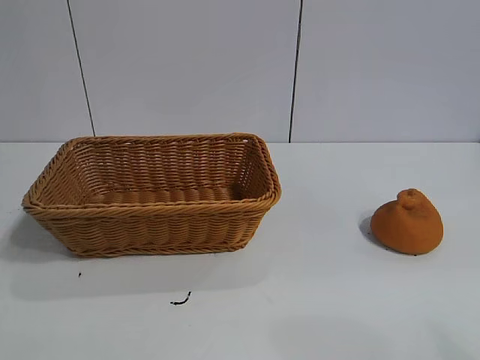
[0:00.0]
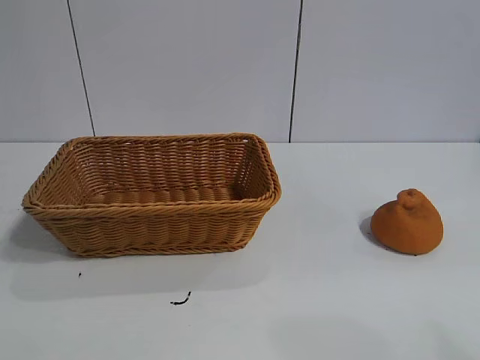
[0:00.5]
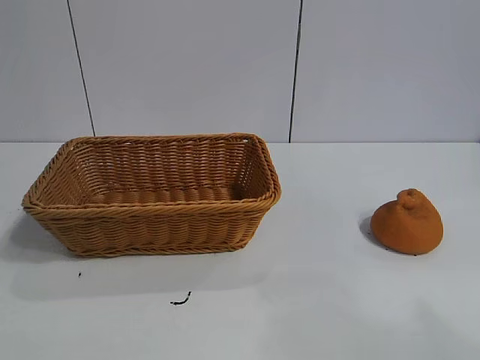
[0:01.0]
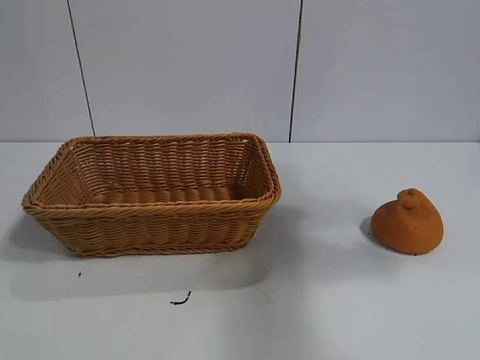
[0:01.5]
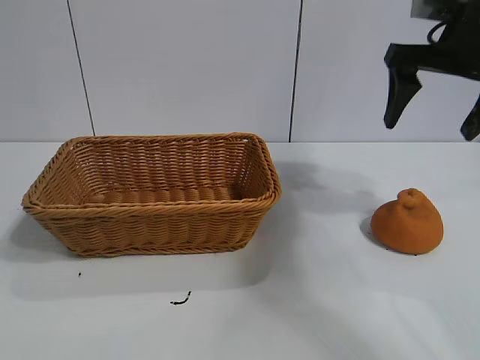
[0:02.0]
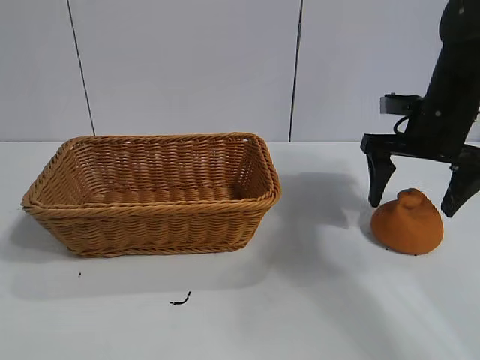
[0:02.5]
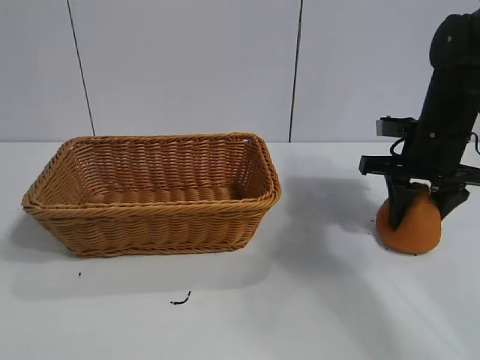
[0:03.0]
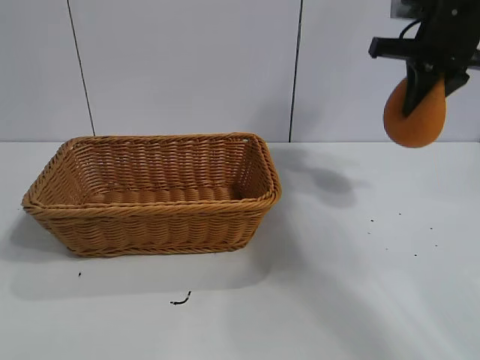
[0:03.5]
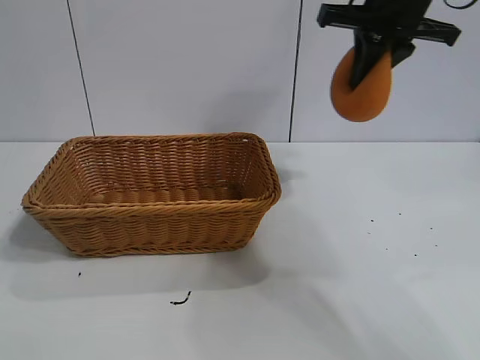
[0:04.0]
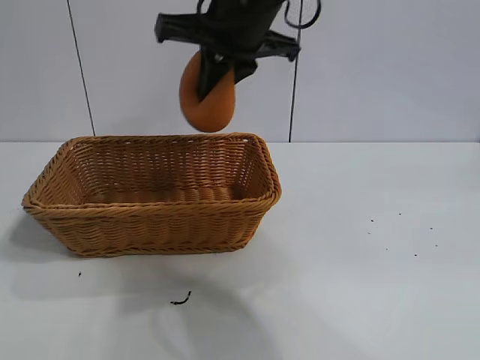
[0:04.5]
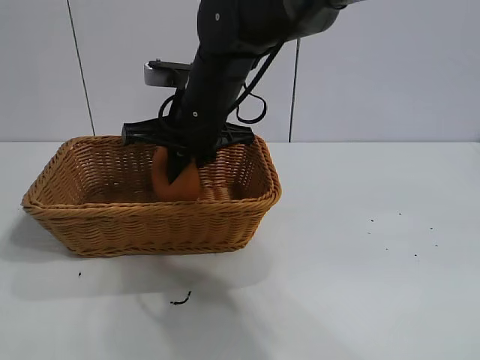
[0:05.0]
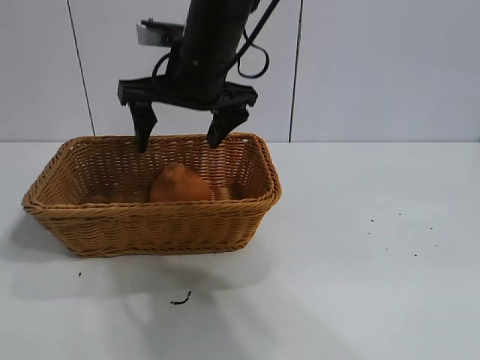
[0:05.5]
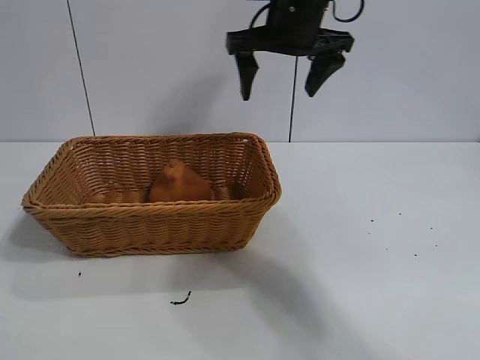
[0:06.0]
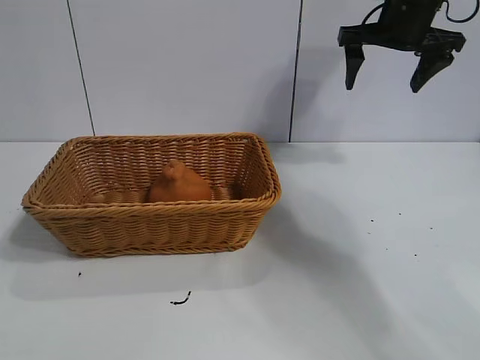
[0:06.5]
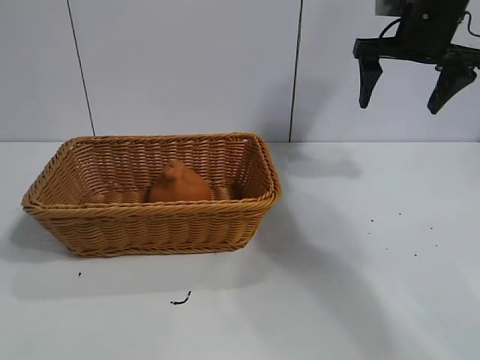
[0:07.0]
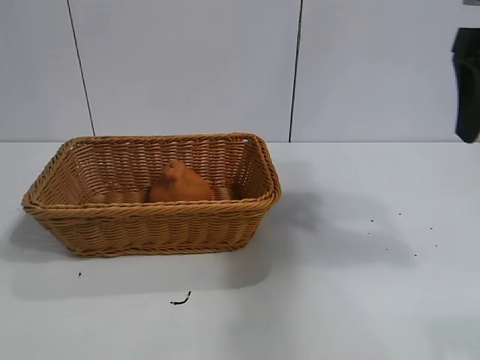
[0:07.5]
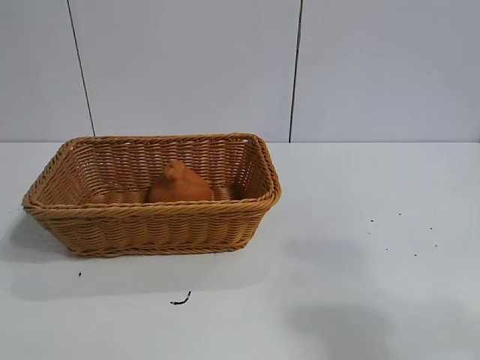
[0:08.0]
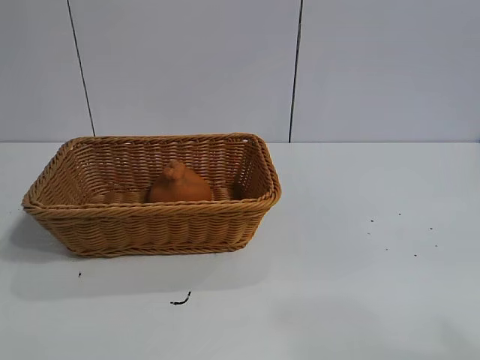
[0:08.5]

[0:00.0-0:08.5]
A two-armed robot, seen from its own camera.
Task of the whole recording: pick up the orange and put it into the basket.
Step, 0:01.0 to 0:03.0: Grasp the orange with right gripper.
Step, 0:03.5 to 0:05.5: Place the orange in the basket with right gripper.

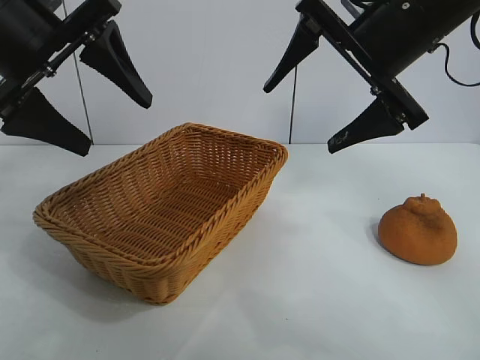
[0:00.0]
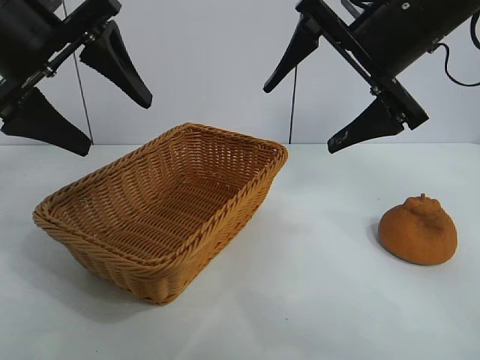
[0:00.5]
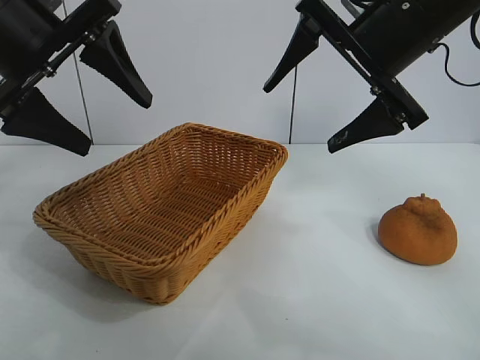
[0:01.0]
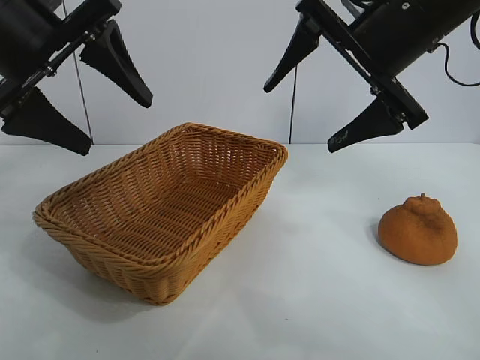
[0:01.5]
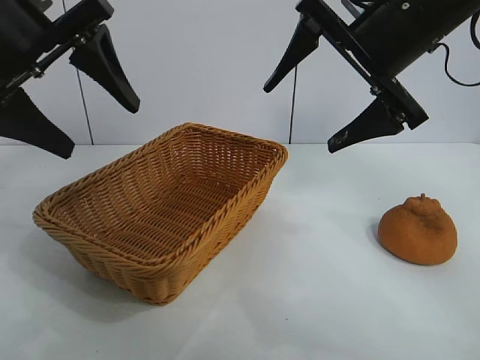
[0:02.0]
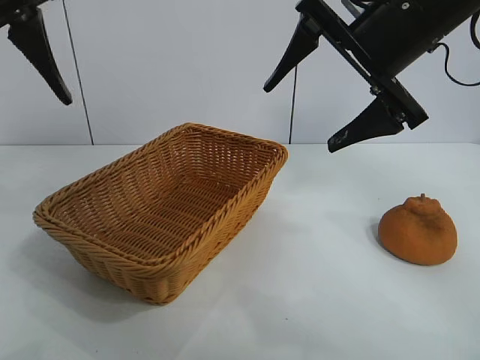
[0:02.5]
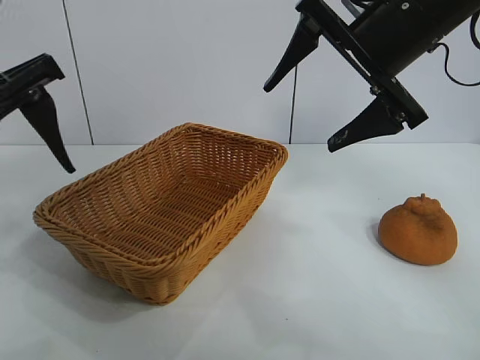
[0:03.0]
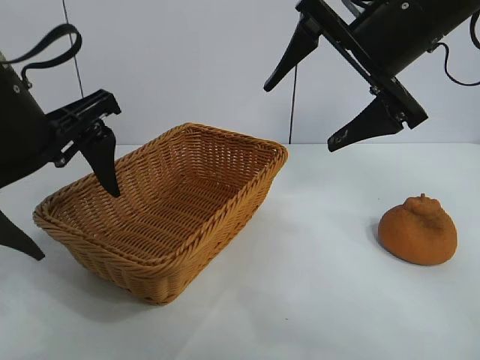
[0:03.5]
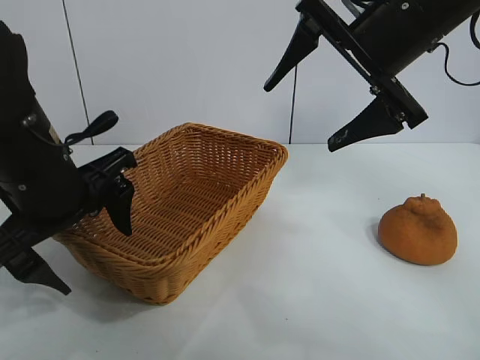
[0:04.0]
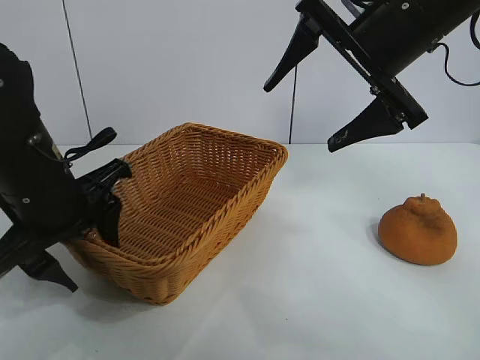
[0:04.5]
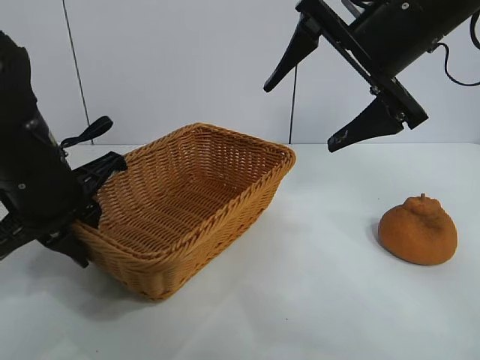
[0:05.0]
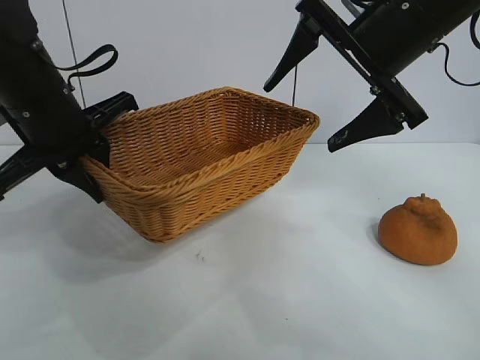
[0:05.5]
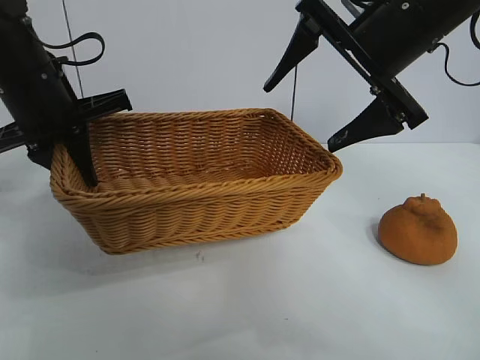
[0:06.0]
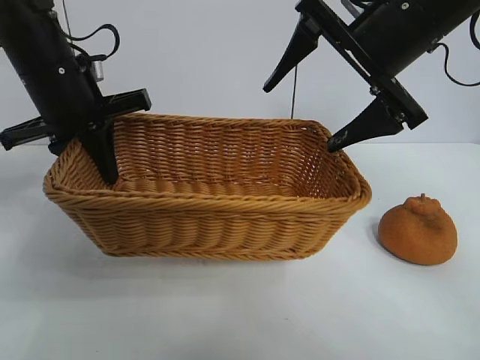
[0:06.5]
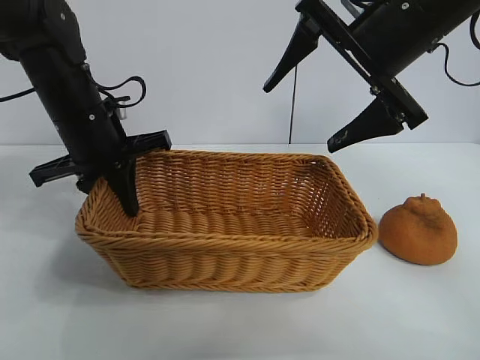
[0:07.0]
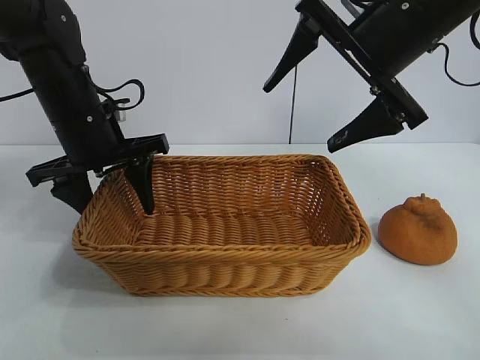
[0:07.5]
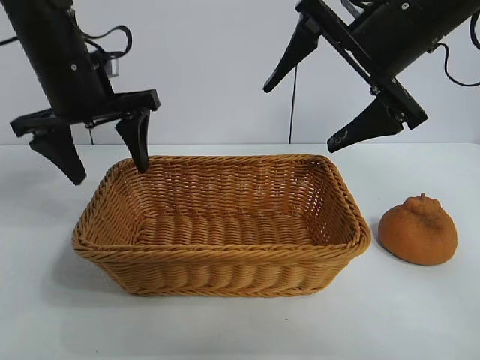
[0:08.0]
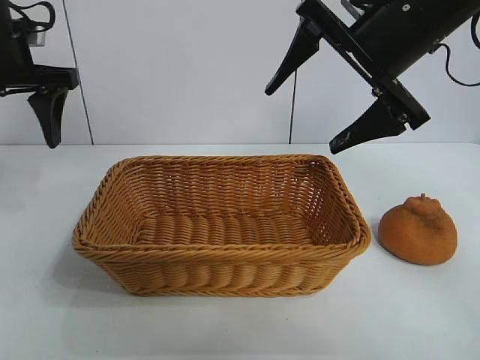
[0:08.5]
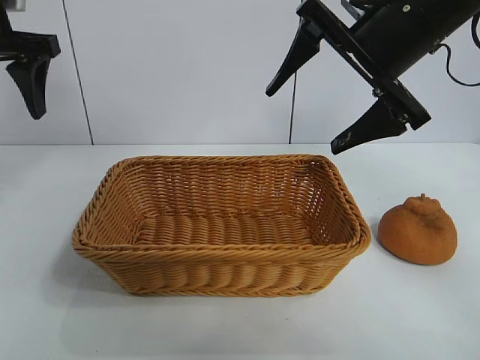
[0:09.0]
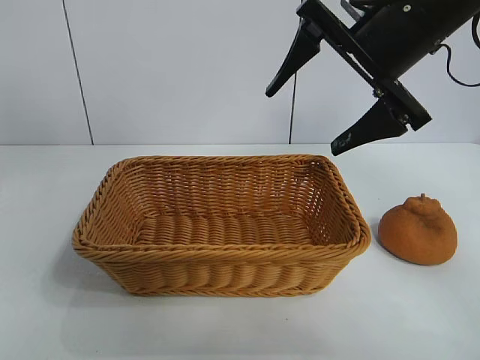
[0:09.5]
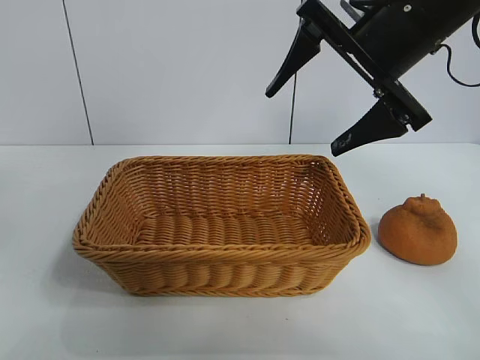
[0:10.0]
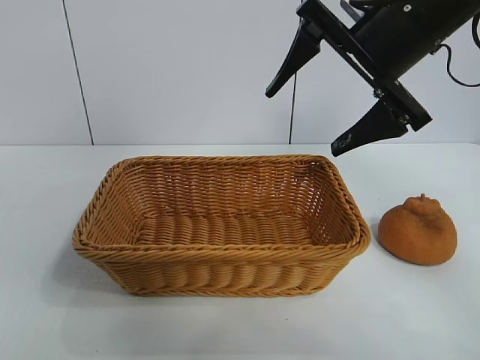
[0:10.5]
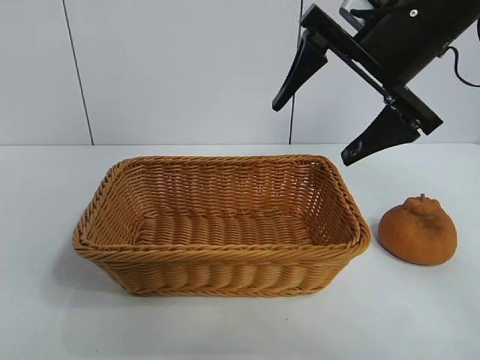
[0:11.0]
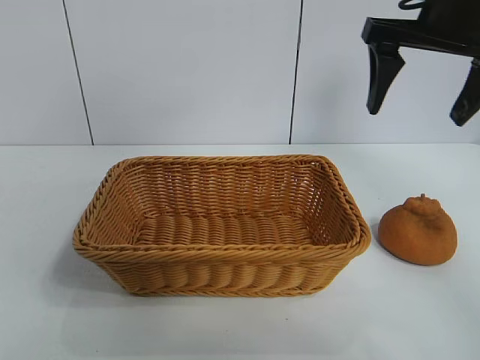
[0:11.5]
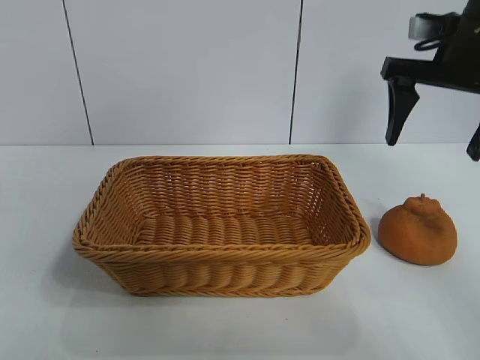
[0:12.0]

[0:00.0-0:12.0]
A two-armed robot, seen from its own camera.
Task of the whole recording: pick up the orange and put it into the basket.
Step, 0:02.0 to 0:04.5: Grasp the basket with left gripper.
Step, 0:05.0 to 0:07.5: Place the basket in the center of view with left gripper.

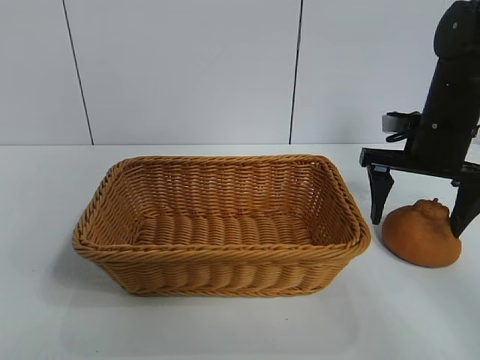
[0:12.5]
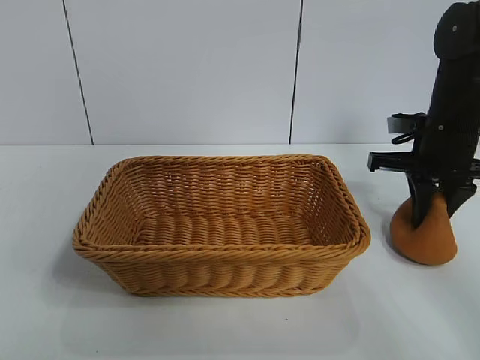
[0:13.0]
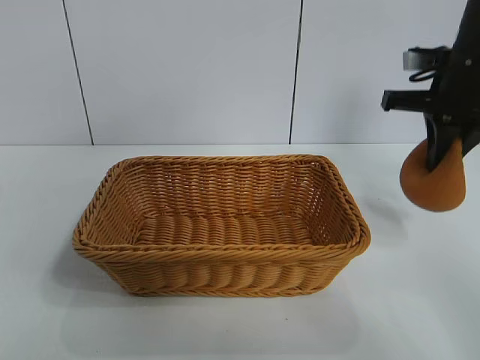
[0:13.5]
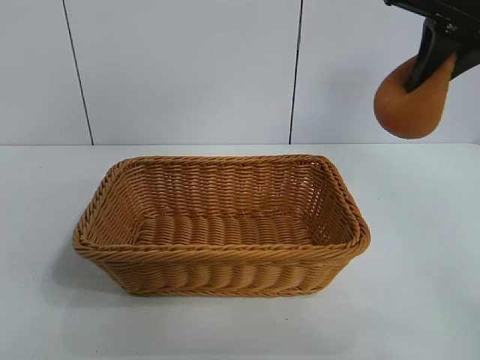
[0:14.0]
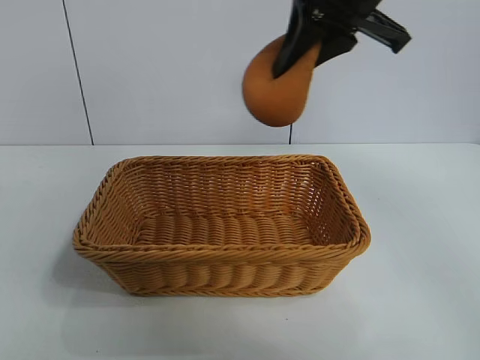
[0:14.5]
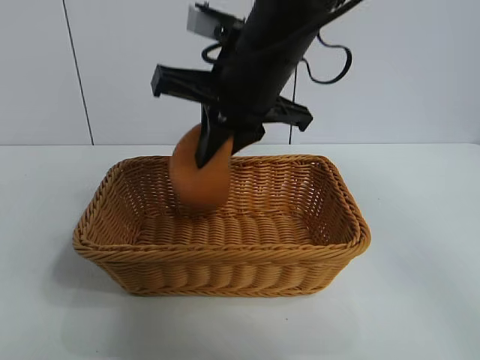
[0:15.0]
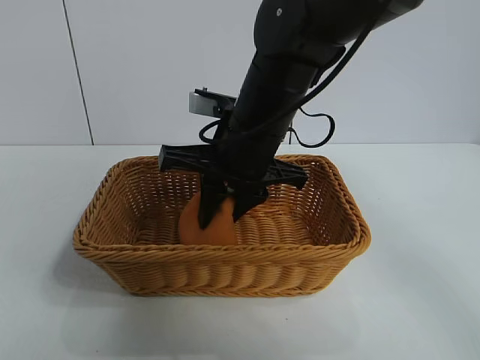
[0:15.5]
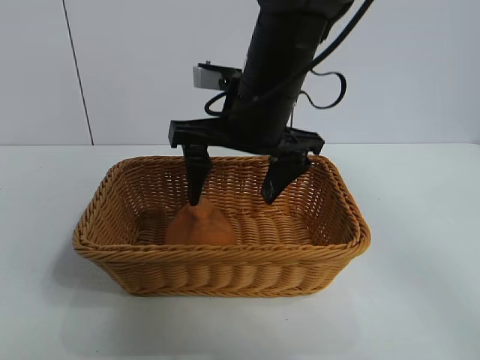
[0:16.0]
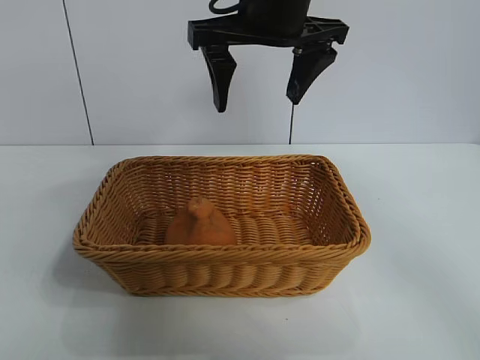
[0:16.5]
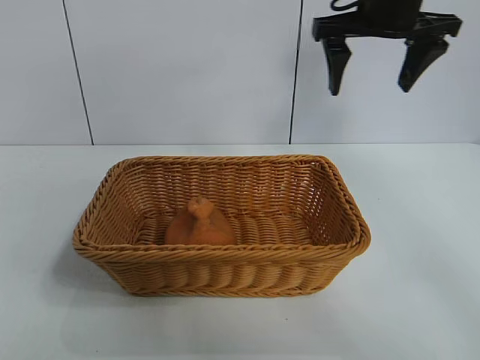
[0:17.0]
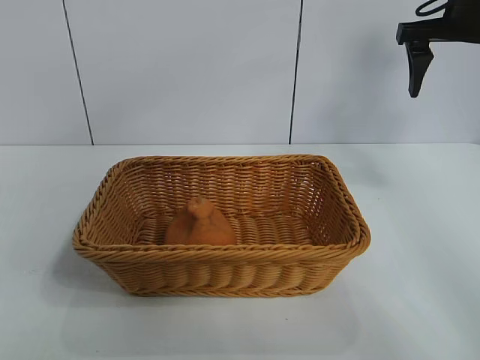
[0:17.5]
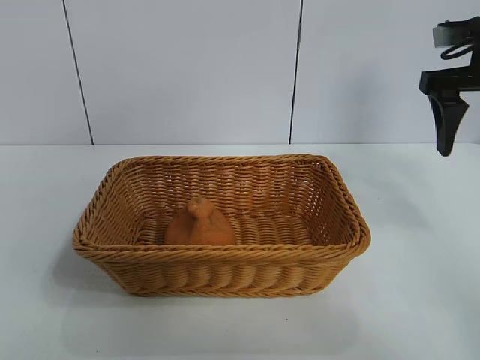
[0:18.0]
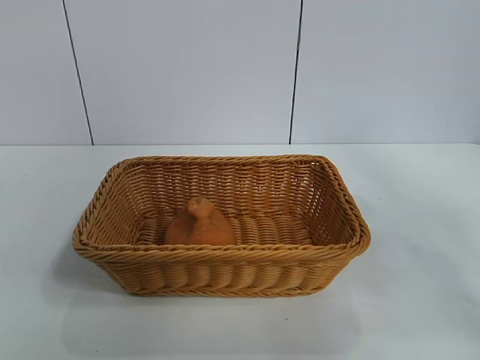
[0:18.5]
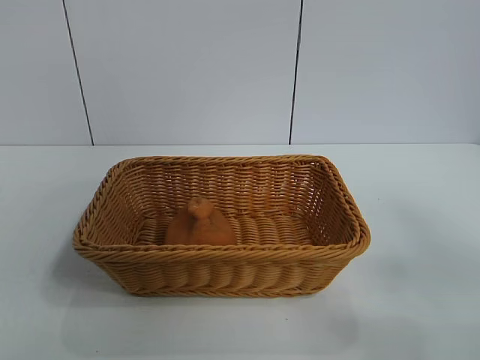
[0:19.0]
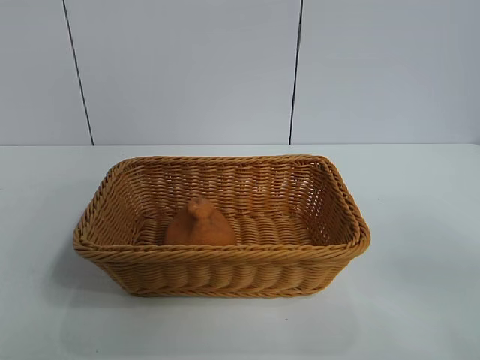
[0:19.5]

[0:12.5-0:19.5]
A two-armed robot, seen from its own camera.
Task of the whole recording: pick up the orange and put it into the basket.
Step, 0:13.5 to 0:15.5: Place the orange in the basket with right gripper.
